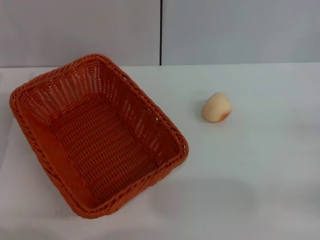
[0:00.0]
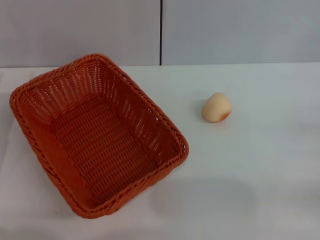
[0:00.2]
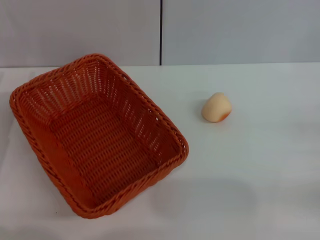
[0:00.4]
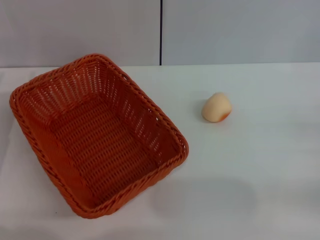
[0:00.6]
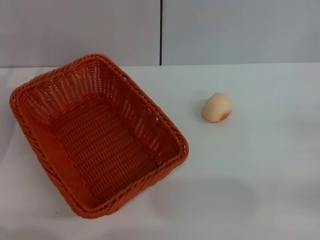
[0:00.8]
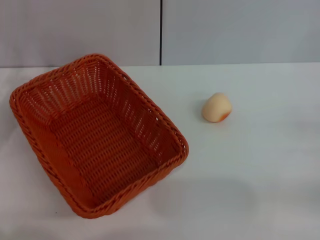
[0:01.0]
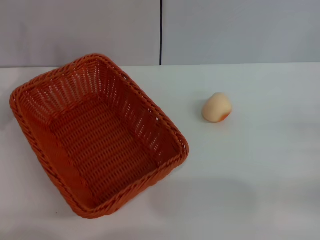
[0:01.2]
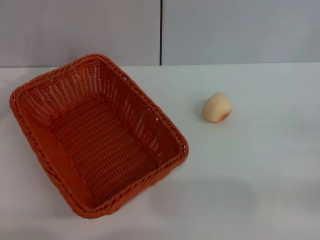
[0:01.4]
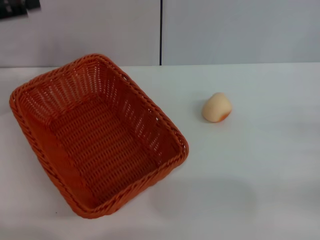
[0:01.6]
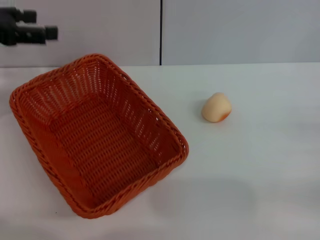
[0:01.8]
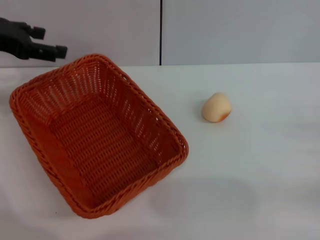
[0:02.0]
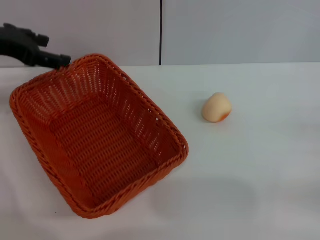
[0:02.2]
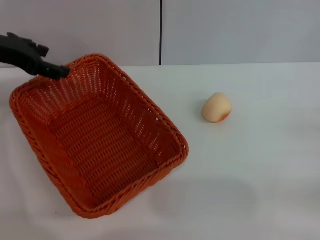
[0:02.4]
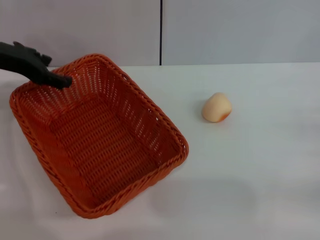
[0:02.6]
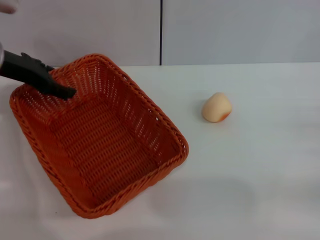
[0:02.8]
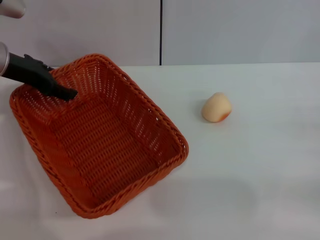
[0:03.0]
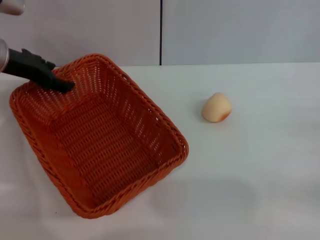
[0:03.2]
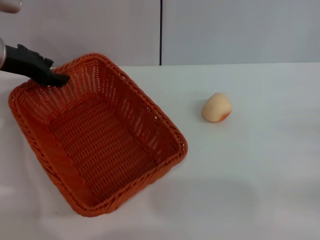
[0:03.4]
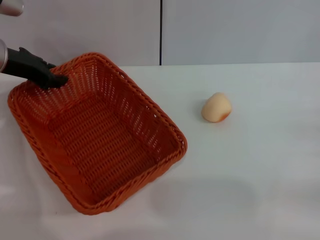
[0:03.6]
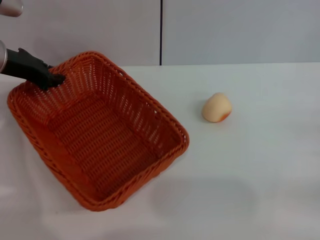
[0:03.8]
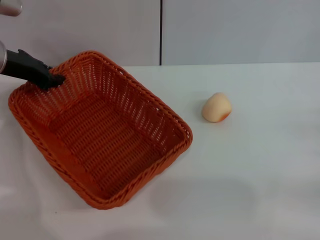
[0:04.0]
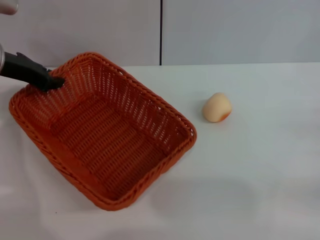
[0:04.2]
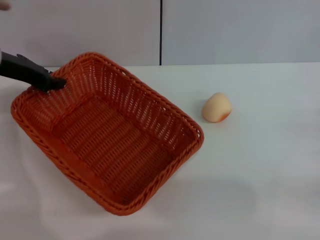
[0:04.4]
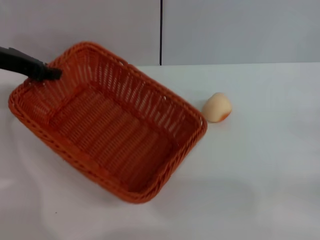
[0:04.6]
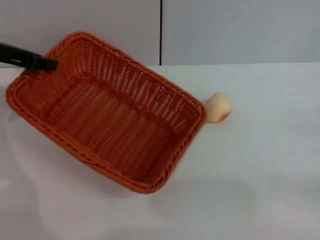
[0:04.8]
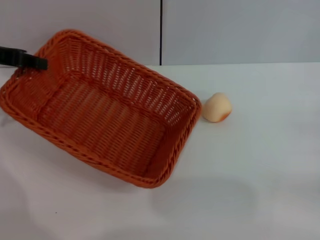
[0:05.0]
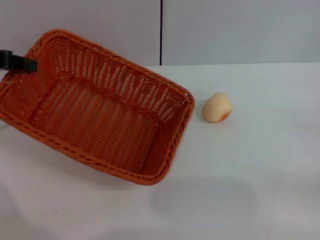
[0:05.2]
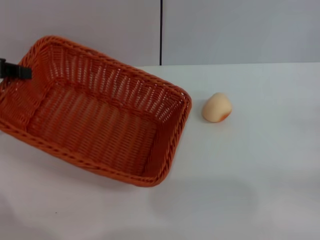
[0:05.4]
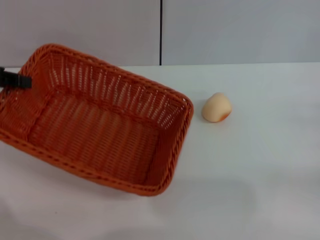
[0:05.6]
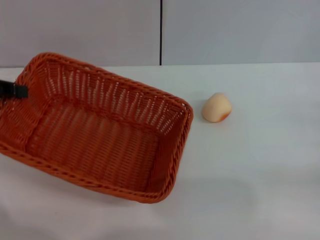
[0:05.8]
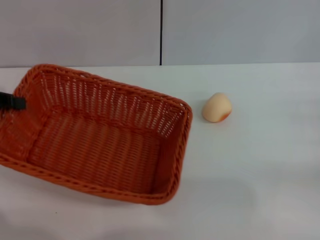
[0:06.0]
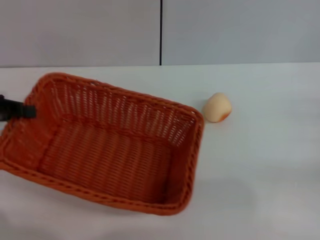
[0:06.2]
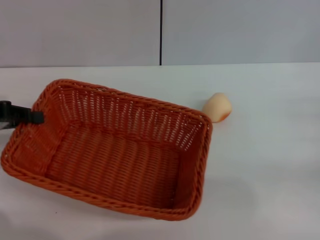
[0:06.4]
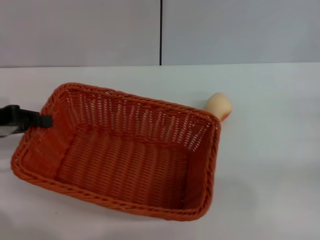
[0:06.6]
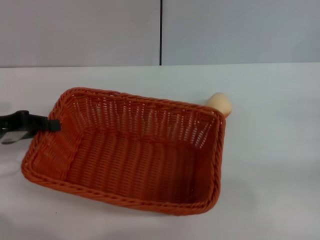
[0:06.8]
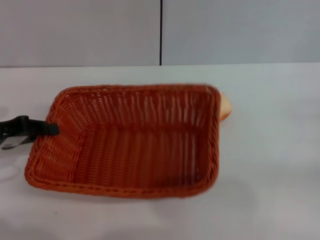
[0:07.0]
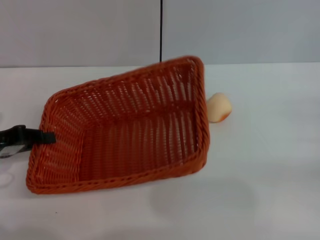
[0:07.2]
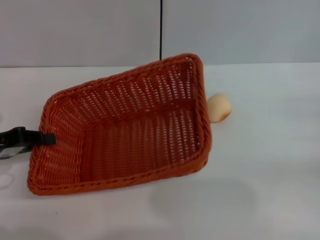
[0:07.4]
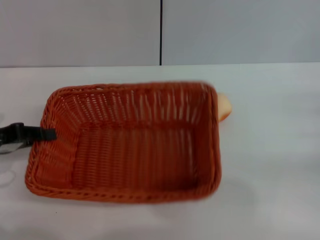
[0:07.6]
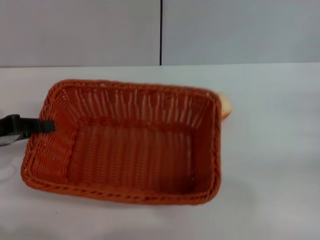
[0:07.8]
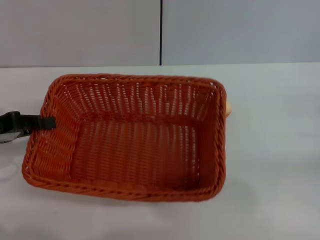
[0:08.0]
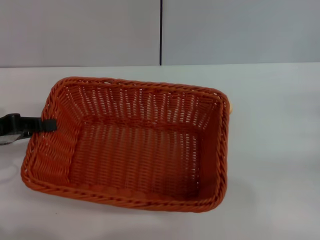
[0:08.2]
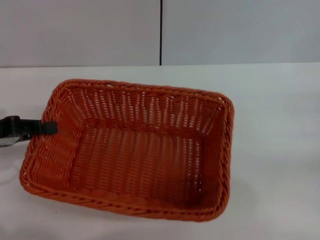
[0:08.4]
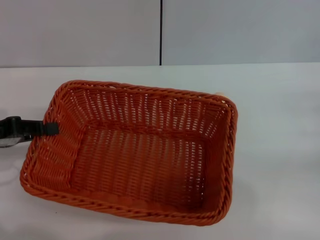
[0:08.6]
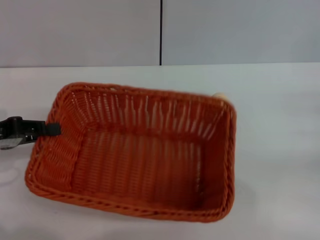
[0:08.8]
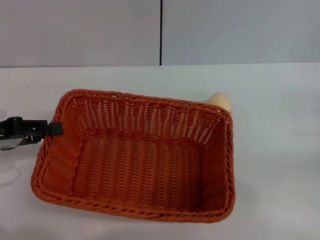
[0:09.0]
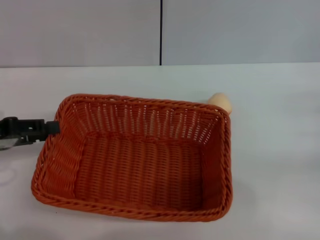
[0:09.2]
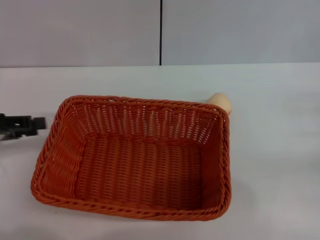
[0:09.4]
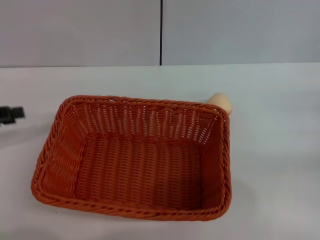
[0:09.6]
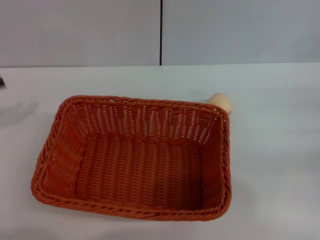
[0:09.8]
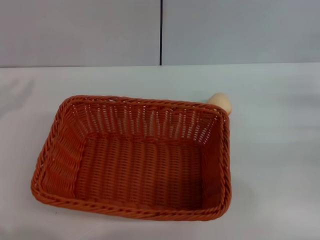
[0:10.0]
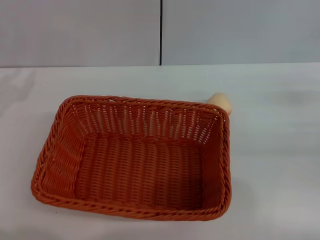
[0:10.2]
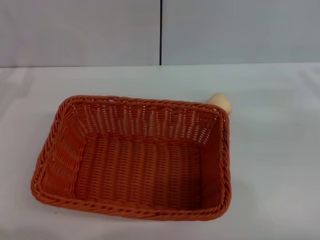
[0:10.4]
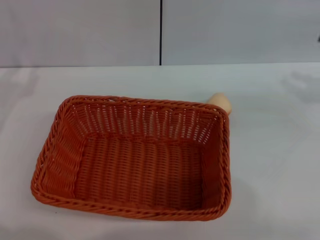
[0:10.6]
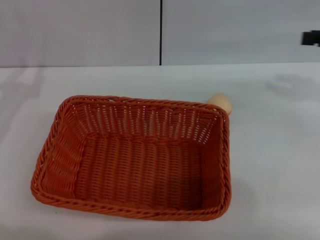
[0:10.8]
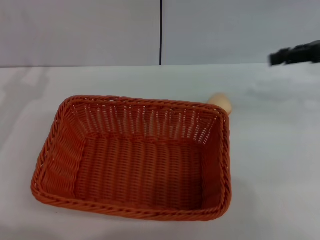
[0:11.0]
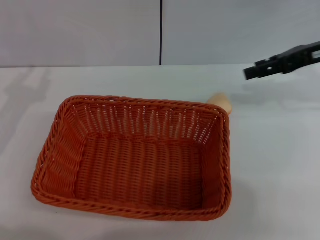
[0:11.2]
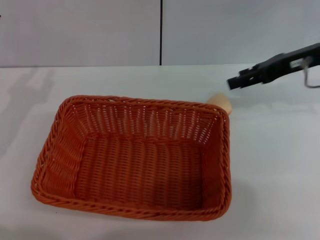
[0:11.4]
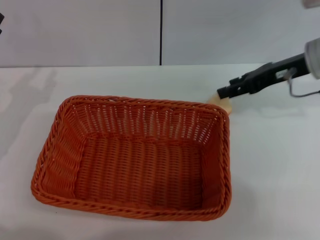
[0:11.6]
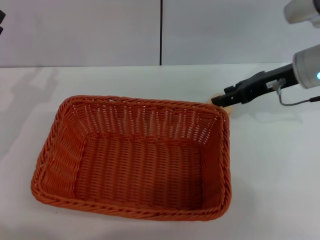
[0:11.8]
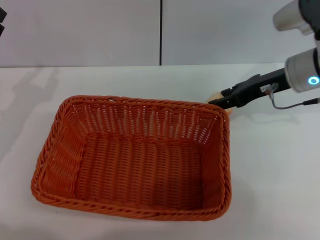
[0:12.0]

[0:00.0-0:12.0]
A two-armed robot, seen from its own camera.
Step, 0:00.0 to 0:09.4: Move the basket to the center of view with the left gripper.
0:00.0 to 0:01.6: The left gripper shifts about 15 cm upward and forward.
0:01.6 to 0:03.0: The left gripper is displaced to the right by some 10 cm.
0:03.0 to 0:04.4: The left gripper closes its fingers.
0:04.4 to 0:06.0: The left gripper is displaced to the left and backward by roughly 10 cm.
0:06.0 to 0:07.6: The left gripper shifts approximately 5 cm downward.
0:07.6 to 0:09.0: The grippers stay close to where they were, moving slightly.
0:09.0 to 0:10.4: The right gripper moves upward, about 10 cm, while the left gripper opens its fingers.
0:10.4 to 0:12.0: The right gripper travels to the left and forward by approximately 20 cm.

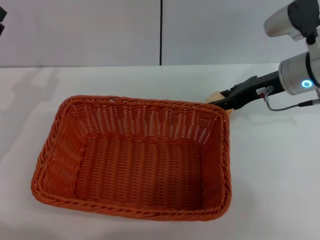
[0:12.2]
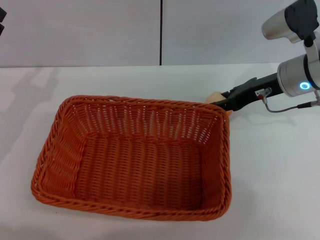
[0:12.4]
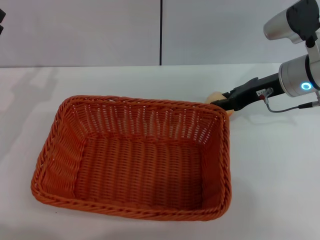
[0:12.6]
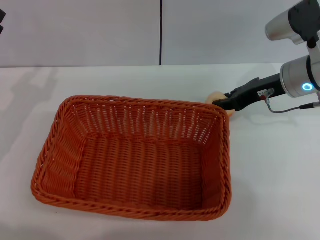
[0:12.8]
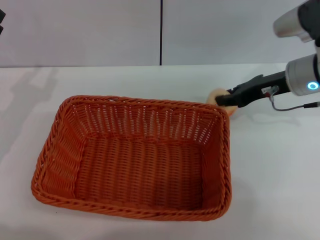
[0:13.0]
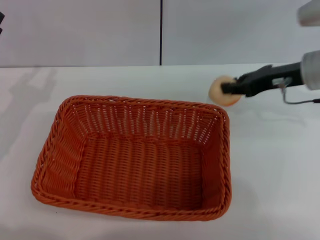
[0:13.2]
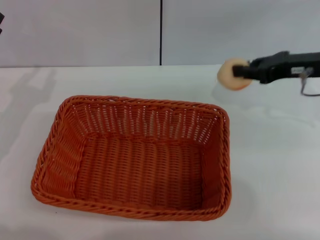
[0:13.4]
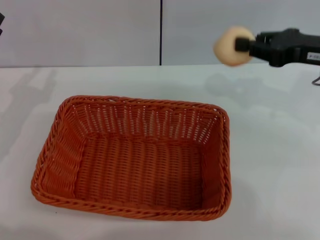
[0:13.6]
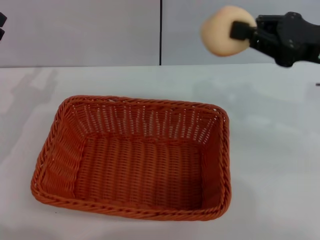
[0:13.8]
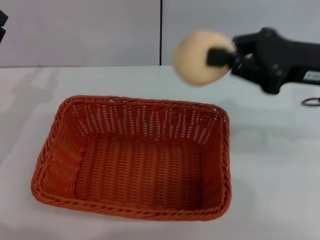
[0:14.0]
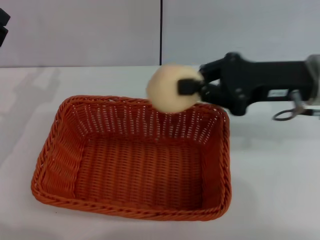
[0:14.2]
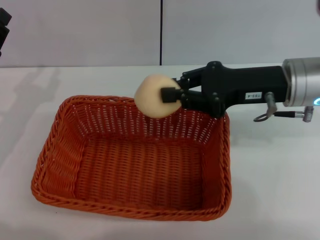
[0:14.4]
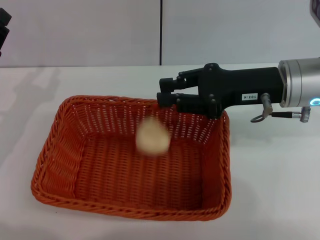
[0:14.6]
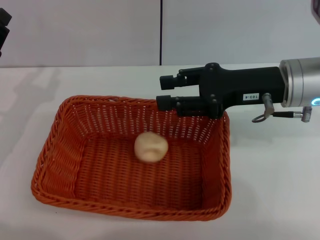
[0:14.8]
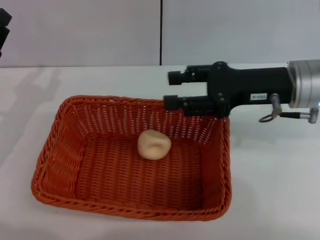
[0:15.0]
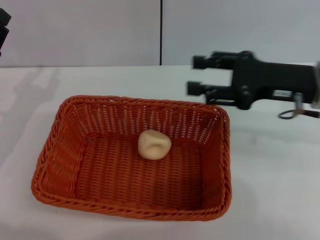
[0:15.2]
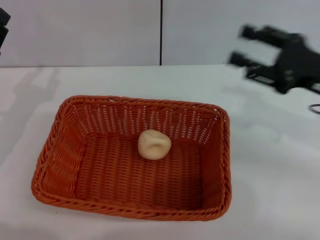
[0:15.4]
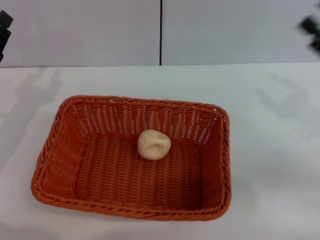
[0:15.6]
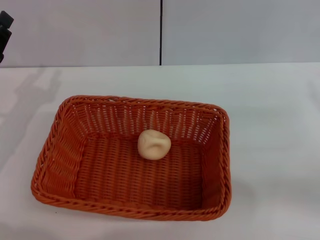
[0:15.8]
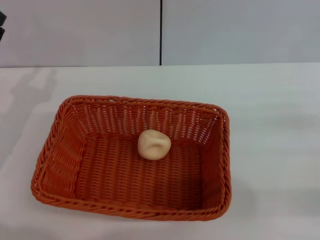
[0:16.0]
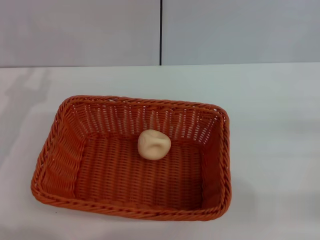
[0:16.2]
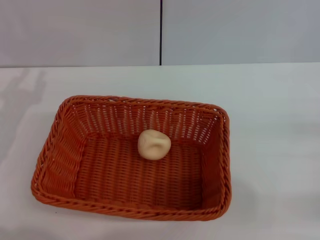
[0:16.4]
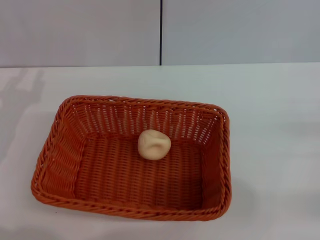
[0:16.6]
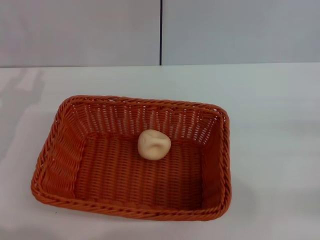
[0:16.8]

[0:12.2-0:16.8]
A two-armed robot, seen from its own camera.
Step, 0:13.6 to 0:15.0: Place the egg yolk pastry into the basket with the right gripper.
0:12.2 to 0:13.8: The right gripper moves backward and upward, some 10 cm, and closes its fingers.
0:13.8 to 0:15.2: The right gripper opens.
0:15.2 to 0:16.8: The right gripper heads to the right, backward and downward, covering roughly 20 cm.
